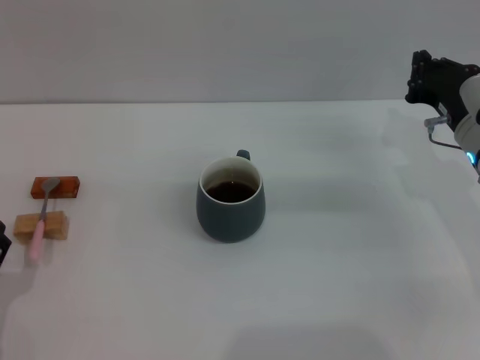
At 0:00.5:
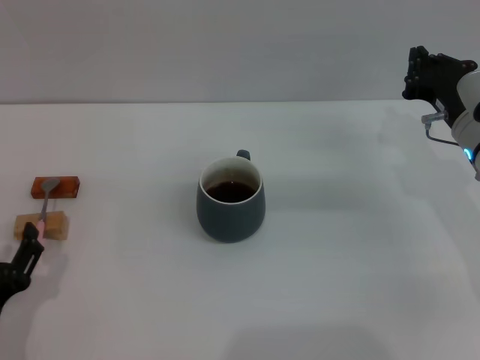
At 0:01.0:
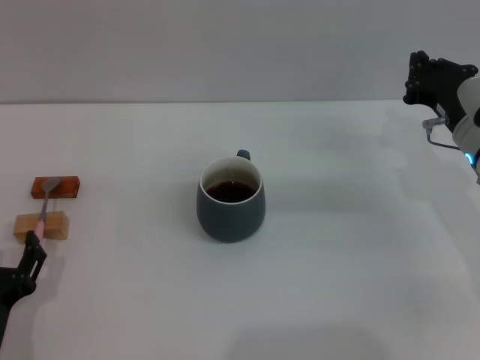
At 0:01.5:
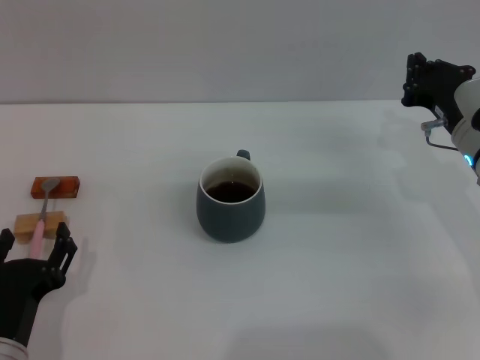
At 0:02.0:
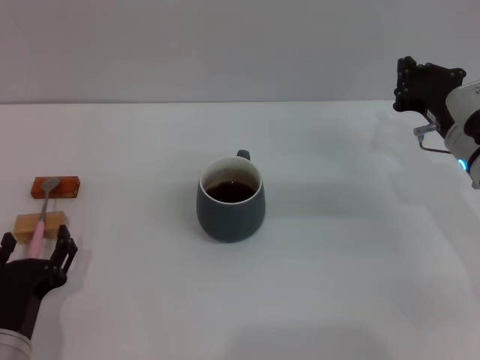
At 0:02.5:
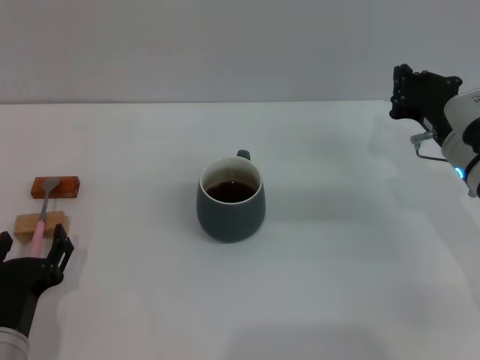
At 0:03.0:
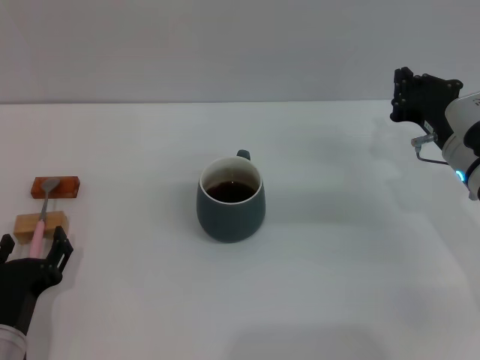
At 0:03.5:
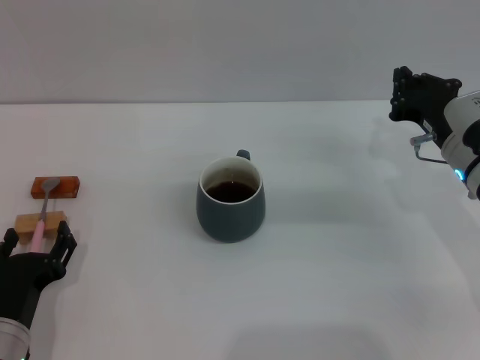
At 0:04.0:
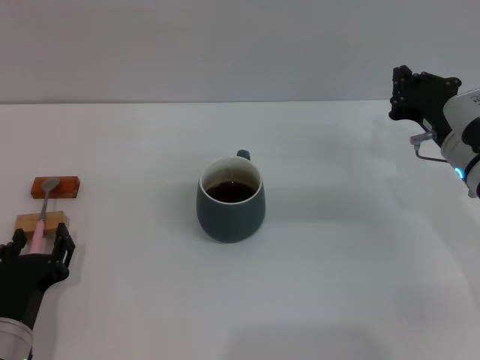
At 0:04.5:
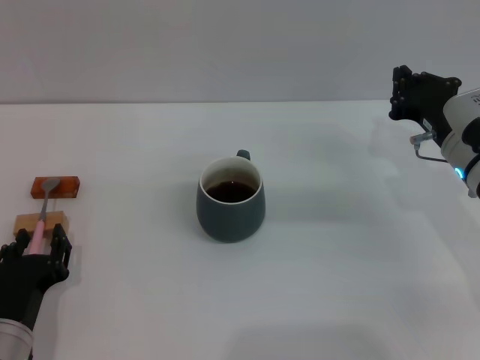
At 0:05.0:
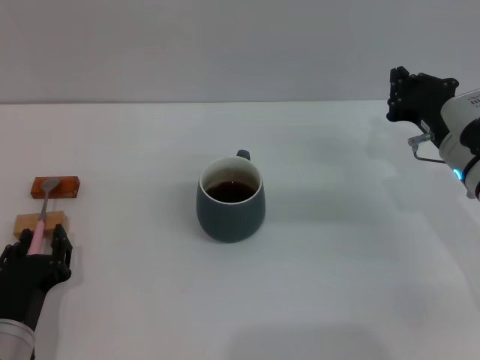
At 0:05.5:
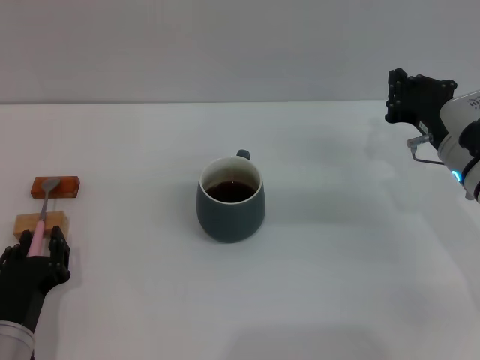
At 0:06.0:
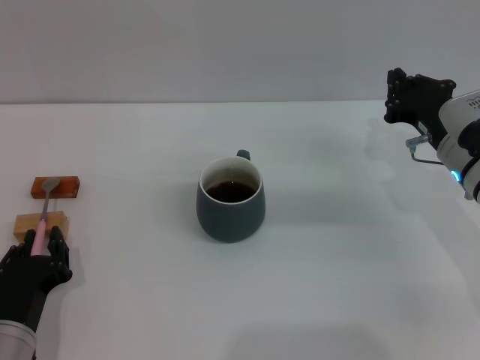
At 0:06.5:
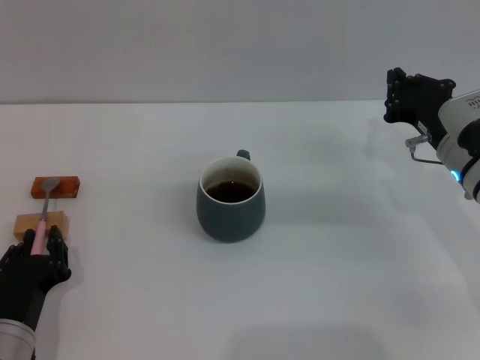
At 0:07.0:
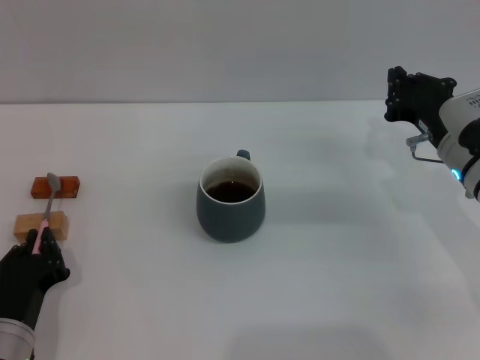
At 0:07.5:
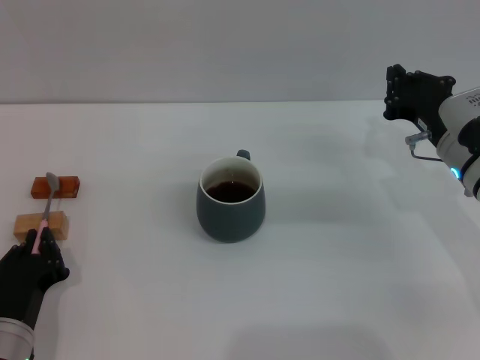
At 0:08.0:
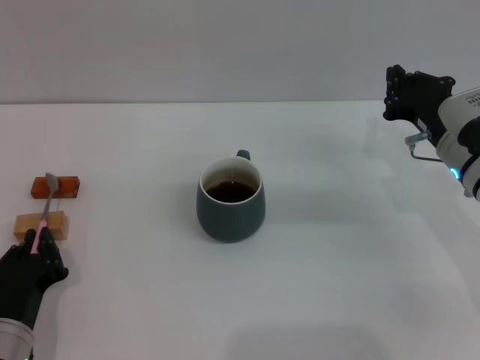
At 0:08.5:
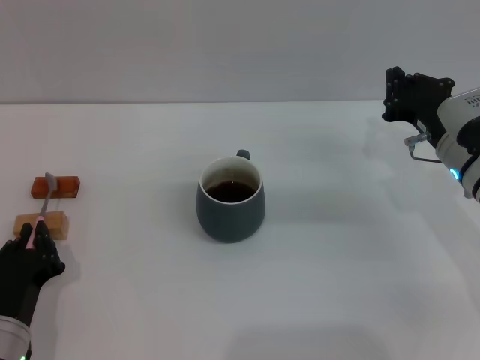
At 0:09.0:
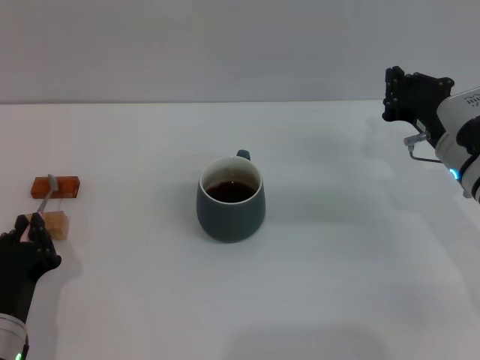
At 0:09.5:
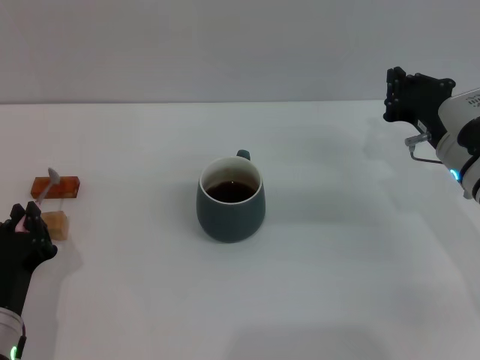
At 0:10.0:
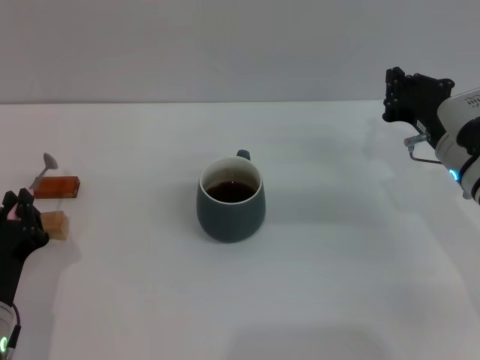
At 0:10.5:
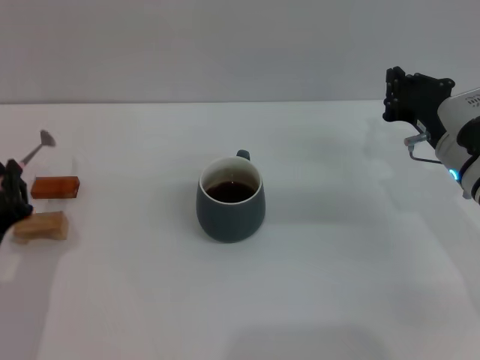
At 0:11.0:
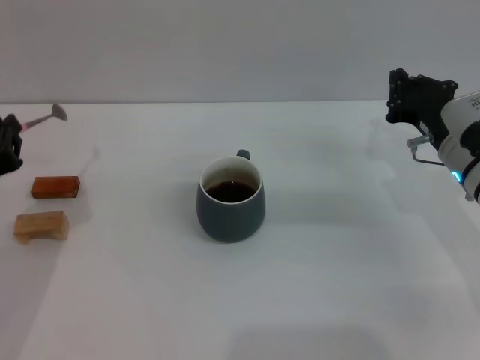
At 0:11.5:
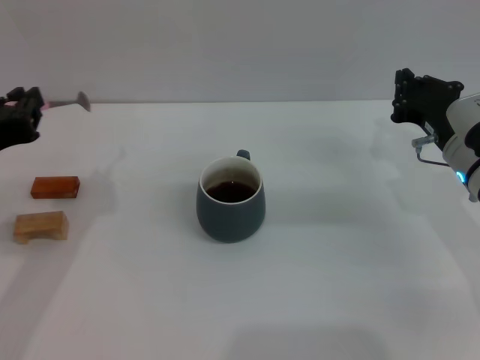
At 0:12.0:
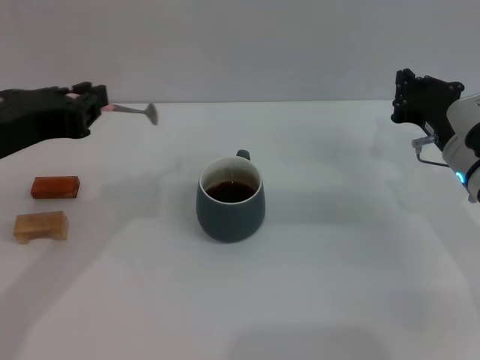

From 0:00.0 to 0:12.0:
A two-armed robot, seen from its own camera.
Task of the whole recording: Move the grey cup to the center, lift the pink spoon, stir it three times in the cup, and put the spoon into the cup.
Step, from 0:00.0 to 0:10.5: Pick up the spoon with the left gripper.
From 0:00.0 to 0:02.0: The left gripper goes about 5 cm to the right.
From 0:02.0 to 0:04.0: There are only small adjustments of the grippers.
From 0:04.0 to 0:06.0: The left gripper closes.
From 0:06.0 to 0:08.0: Both grippers stay put.
From 0:08.0 to 0:10.0: The grippers stay close to where they were, moving slightly.
From 0:10.0 to 0:12.0: The left gripper moves upward, about 20 cm.

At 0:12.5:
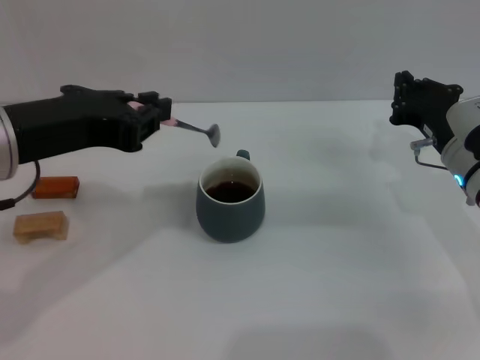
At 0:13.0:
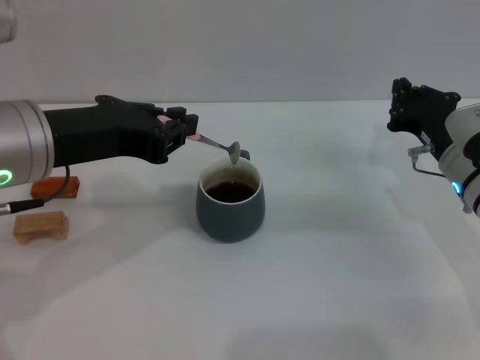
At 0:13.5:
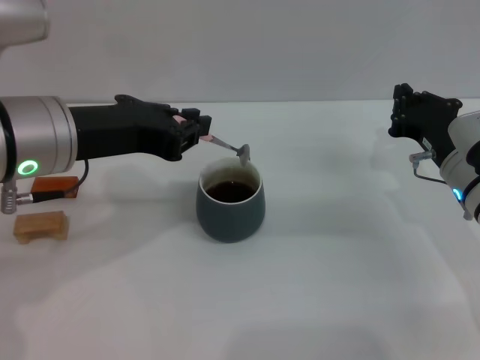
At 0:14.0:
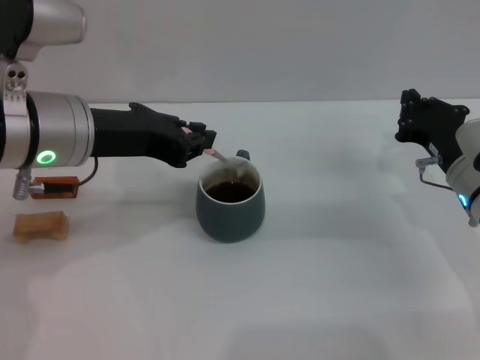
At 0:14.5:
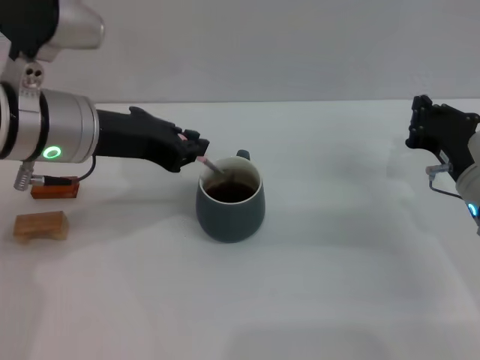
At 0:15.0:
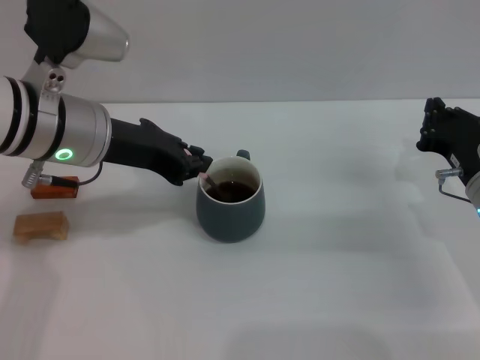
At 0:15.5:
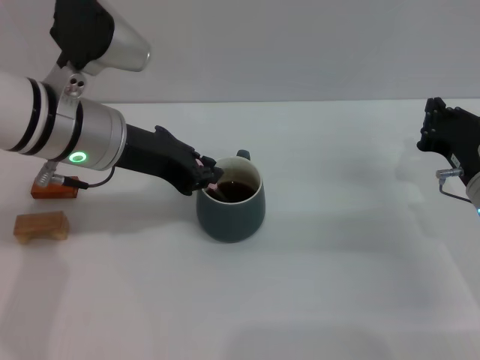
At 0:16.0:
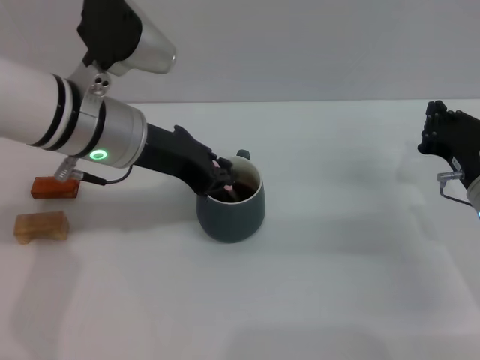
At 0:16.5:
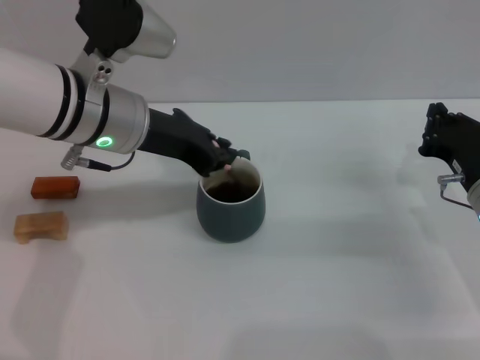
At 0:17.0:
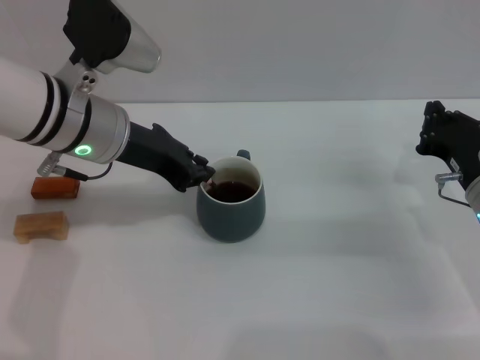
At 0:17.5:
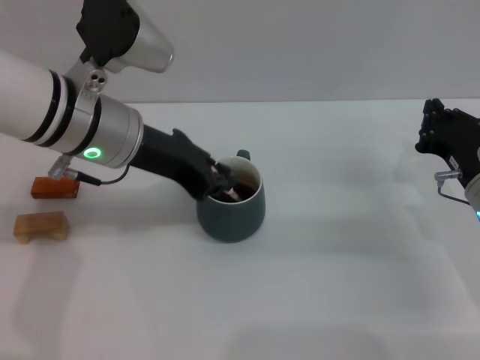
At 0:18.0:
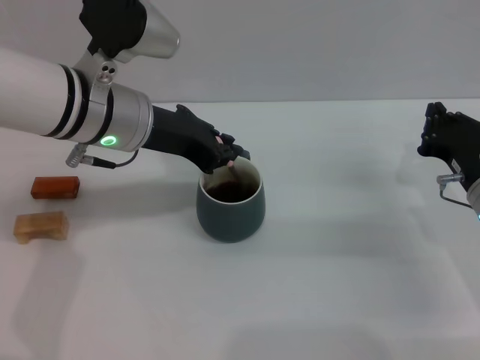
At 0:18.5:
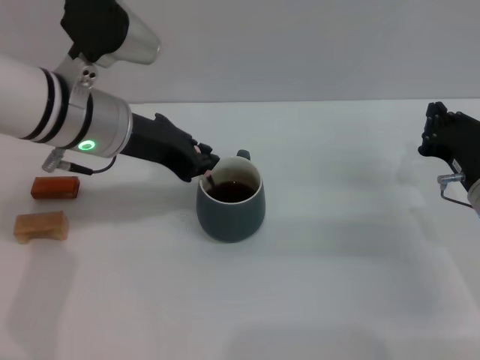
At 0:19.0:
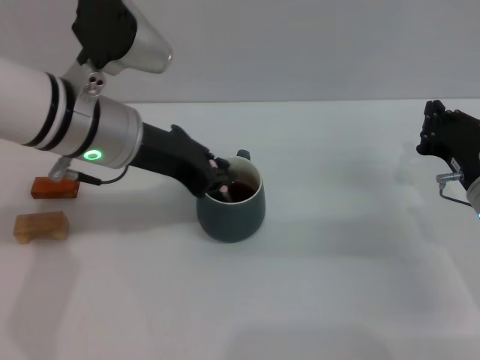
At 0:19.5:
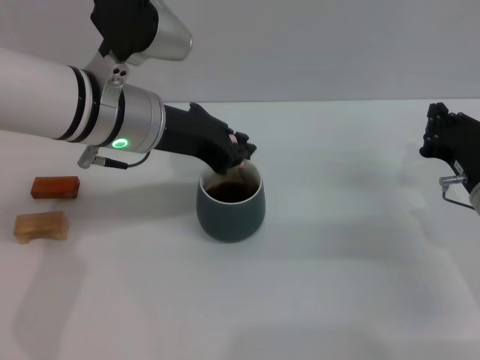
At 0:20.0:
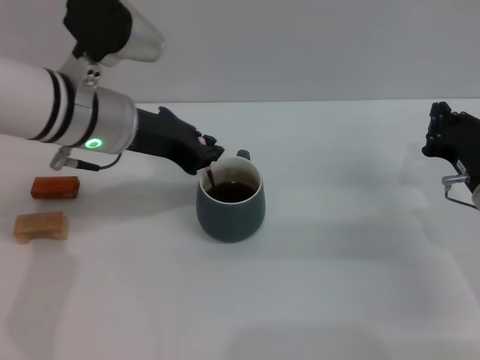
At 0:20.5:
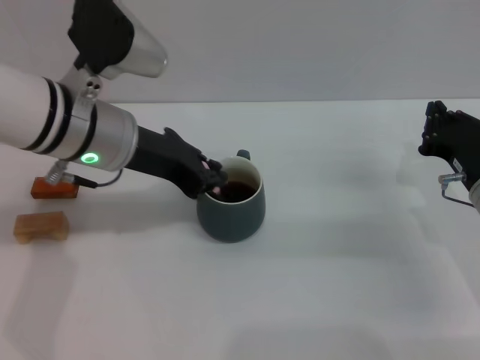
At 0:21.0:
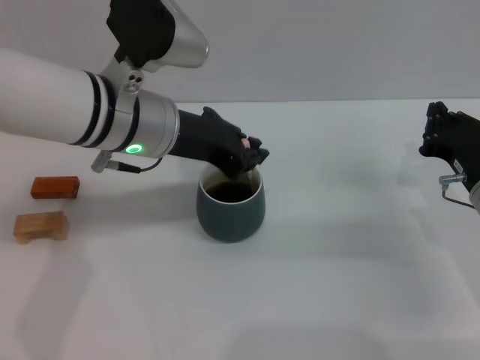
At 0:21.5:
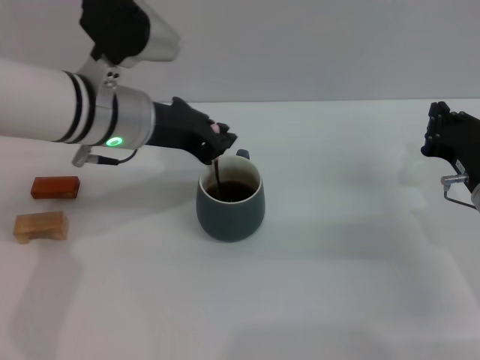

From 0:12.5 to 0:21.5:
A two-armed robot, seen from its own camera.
Task of the whole recording: Move the grey cup to the center, lift the pink spoon, stir it three times in the cup, and put the spoon into the cup.
From 0:12.5 to 0:14.5: The left gripper is displaced forward by roughly 10 cm.
From 0:14.5 to 0:19.5: The grippers make only small movements.
From 0:19.5 to 0:21.5: There are only small adjustments of the grippers.

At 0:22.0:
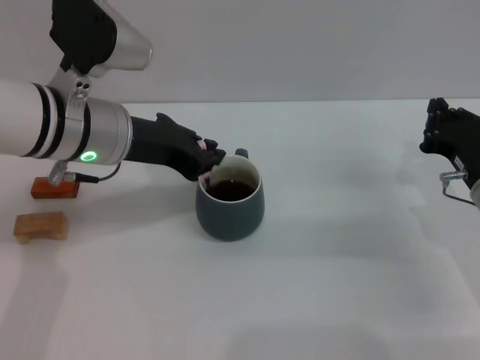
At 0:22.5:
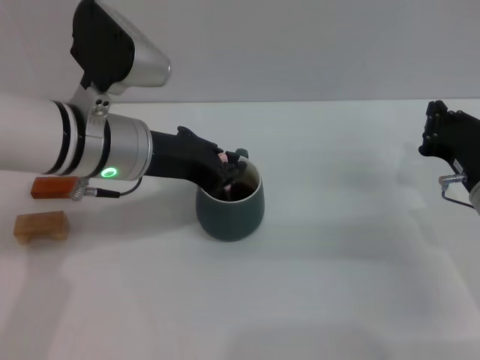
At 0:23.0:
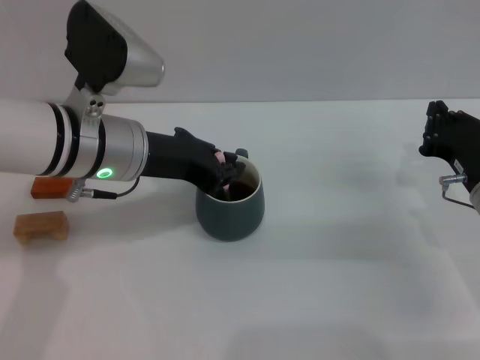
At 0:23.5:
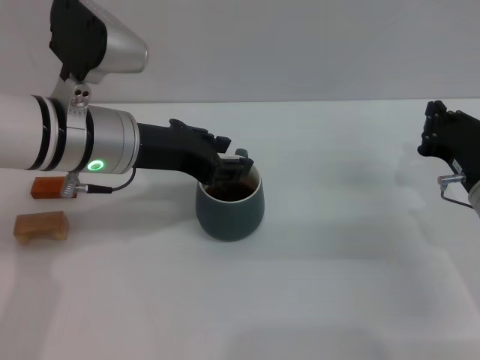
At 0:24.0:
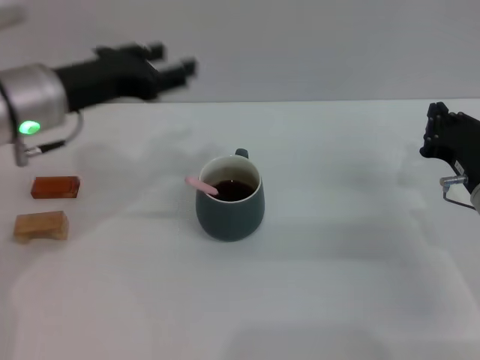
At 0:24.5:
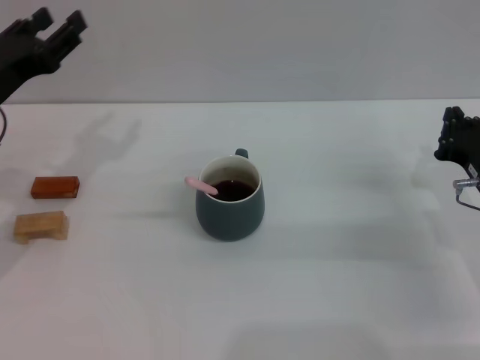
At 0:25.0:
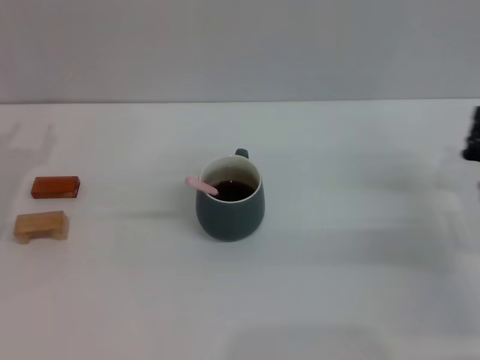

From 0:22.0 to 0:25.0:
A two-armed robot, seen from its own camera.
Task of the whole recording: Move the grey cup to the center, lift the pink spoon, stir it three times in the cup, and put the spoon into the cup.
From 0:22.0 to 0:23.5: The grippers move only a little.
From 0:23.5 to 0:25.0: The left gripper goes about 20 cm to the left and downward, and opens its fingers.

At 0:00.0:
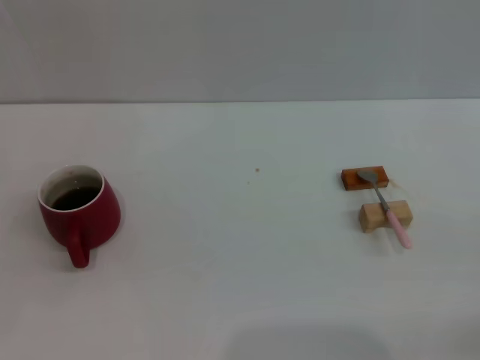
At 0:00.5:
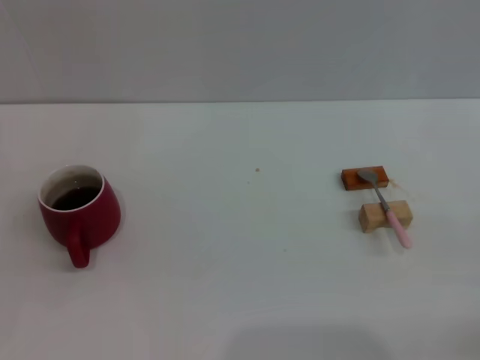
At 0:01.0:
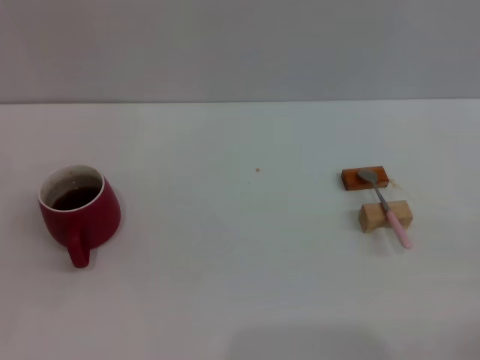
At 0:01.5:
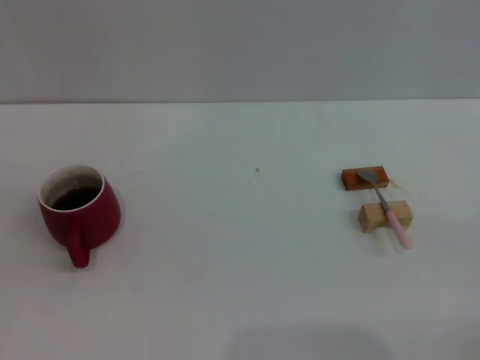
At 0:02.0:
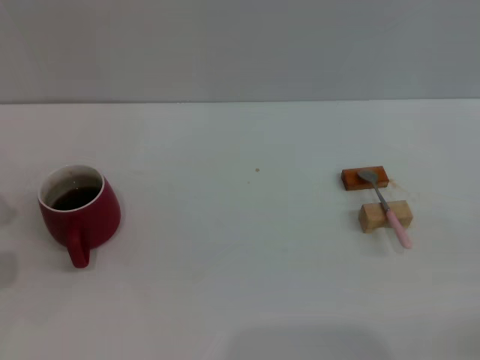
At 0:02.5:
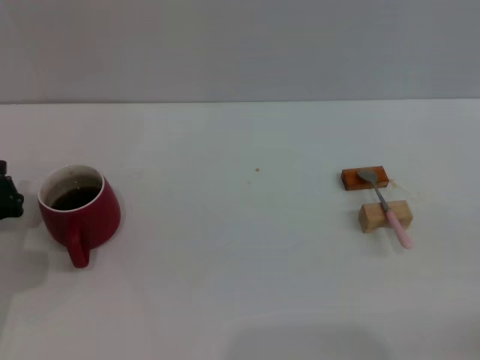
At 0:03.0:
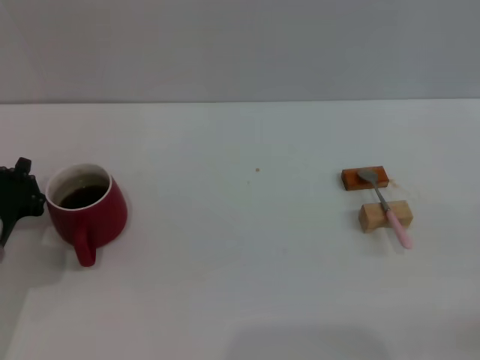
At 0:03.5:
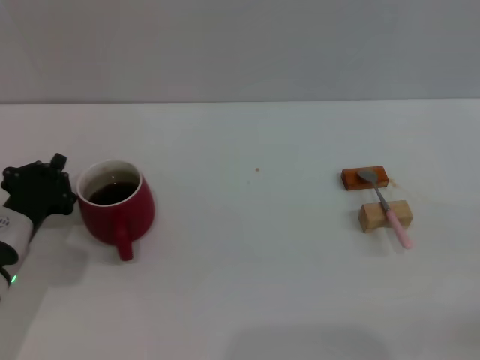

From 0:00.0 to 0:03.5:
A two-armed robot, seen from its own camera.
Task of the whole recording: Move the red cup to the center, lift the pink spoon, stir it three times in the cup, and put the spoon into the cup.
From 0:02.0 to 0:03.5: The left gripper shifts some 5 cm to the right.
